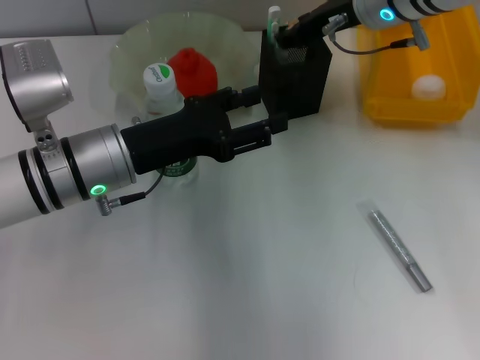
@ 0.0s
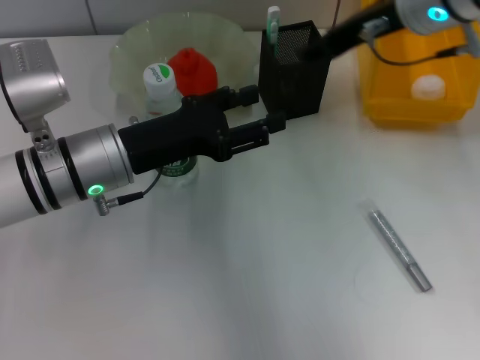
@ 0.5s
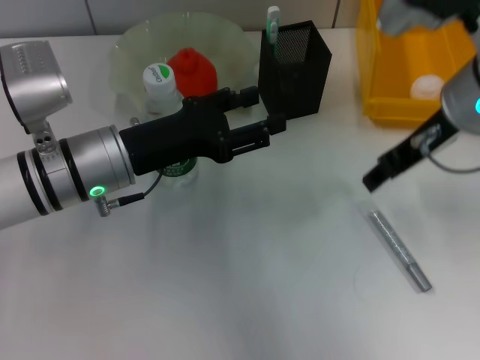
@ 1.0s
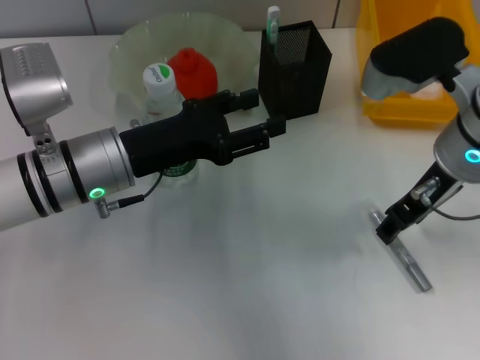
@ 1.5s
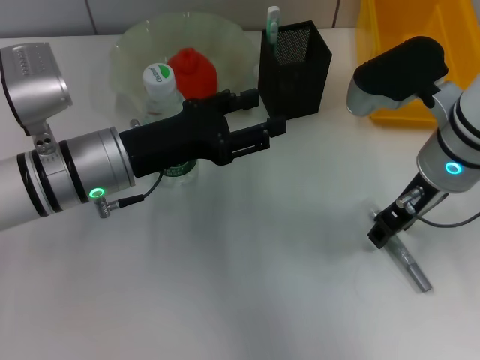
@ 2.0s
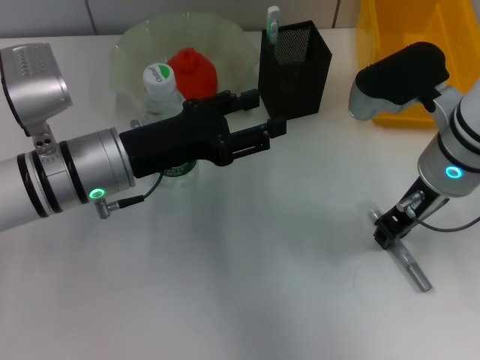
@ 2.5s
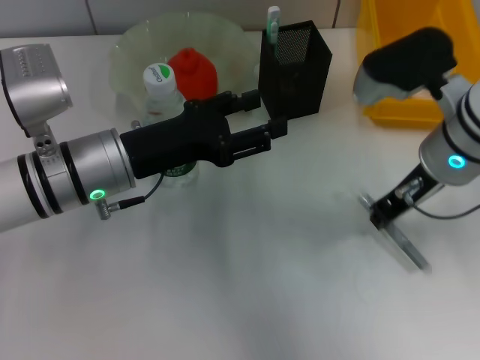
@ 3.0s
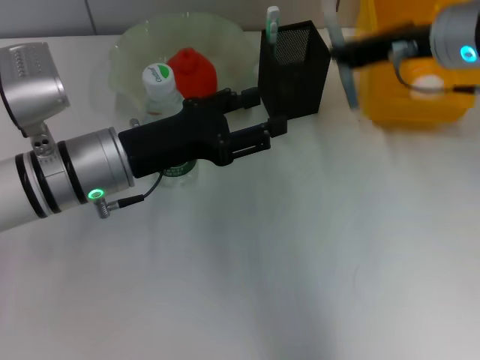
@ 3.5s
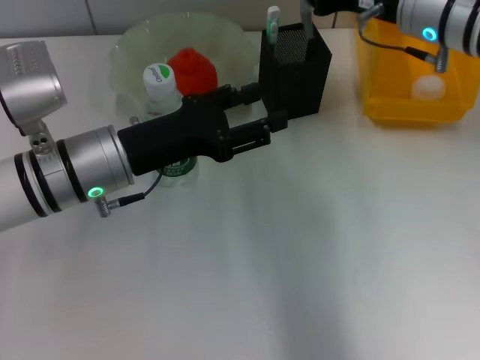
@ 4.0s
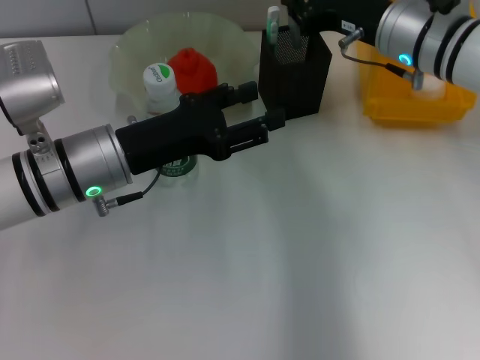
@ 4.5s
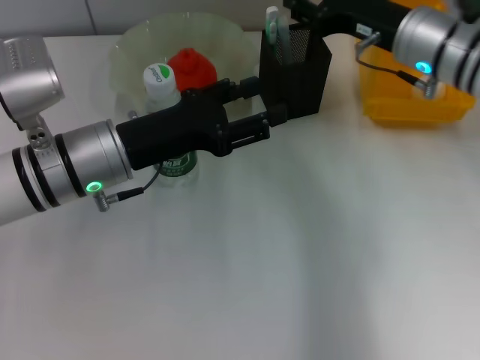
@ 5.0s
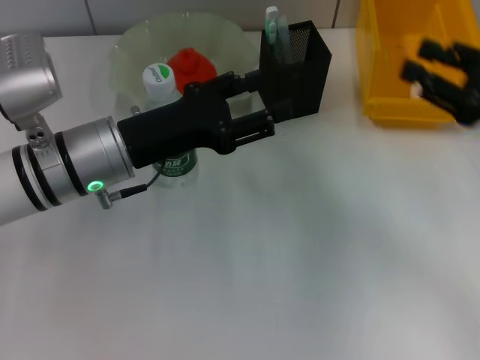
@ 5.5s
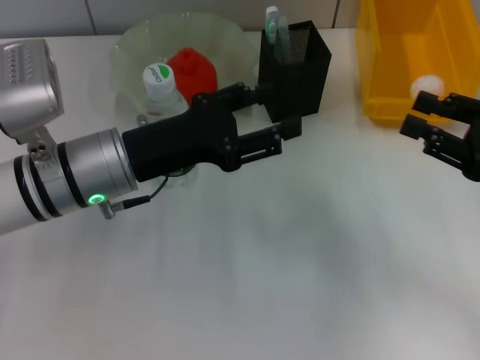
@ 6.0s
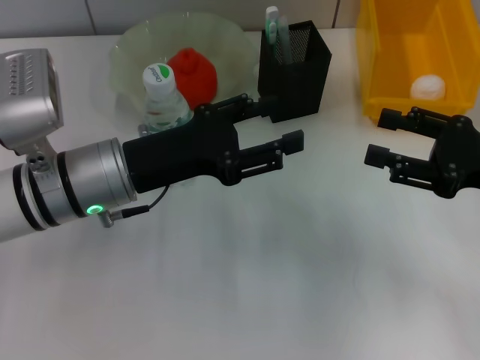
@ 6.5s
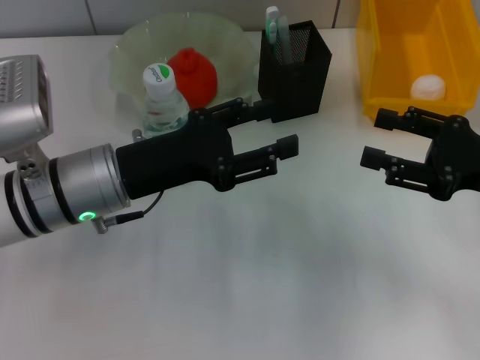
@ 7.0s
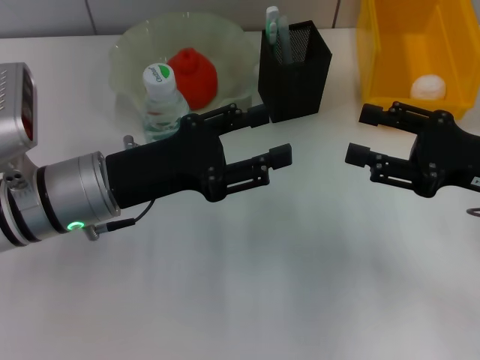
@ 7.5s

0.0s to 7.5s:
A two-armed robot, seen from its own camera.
Step, 0.5s to 2.5s: Grab the gray glue with the right hand.
Step, 3.0s to 4.5s: Place the gray glue into the pen holder with the right hand.
0.0s to 2.0s: The right gripper moves backward and downward, some 10 cm.
2.0s to 4.0s: The right gripper heads forward, covering some 10 cm, and closes its fingers.
4.0s to 5.5s: The right gripper moves to the right and backward, roughly 20 cm, and opens up.
5.5s to 7.5s: The right gripper opens up.
